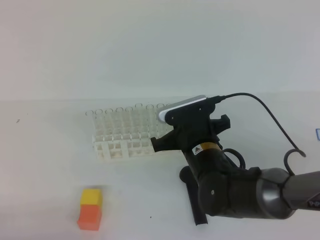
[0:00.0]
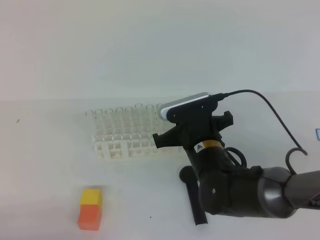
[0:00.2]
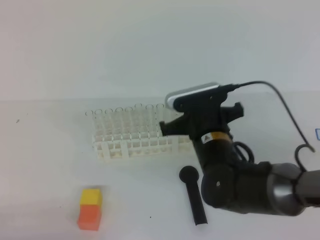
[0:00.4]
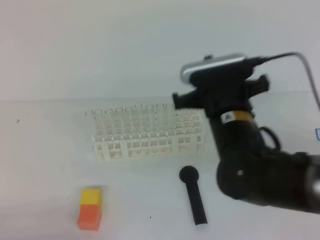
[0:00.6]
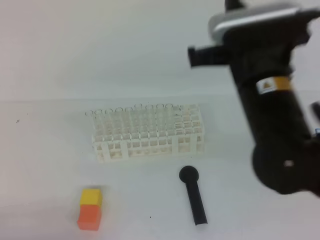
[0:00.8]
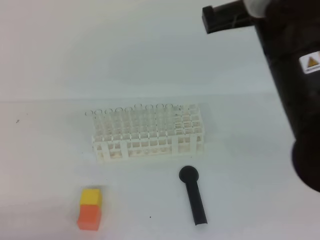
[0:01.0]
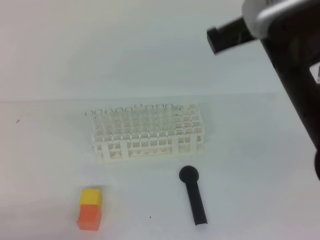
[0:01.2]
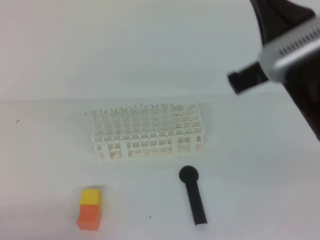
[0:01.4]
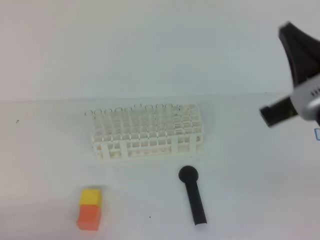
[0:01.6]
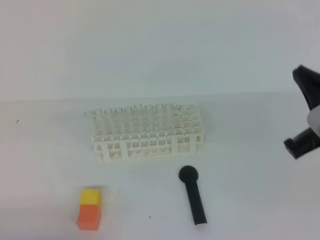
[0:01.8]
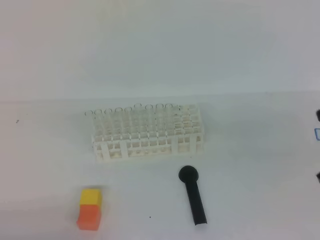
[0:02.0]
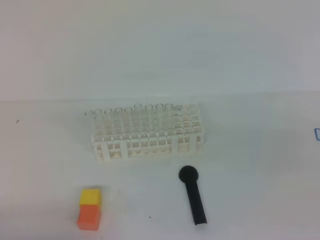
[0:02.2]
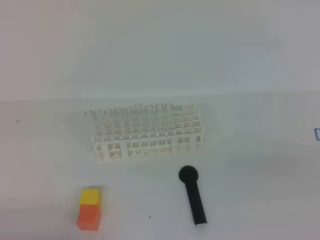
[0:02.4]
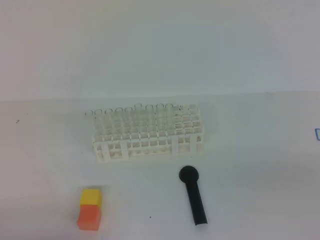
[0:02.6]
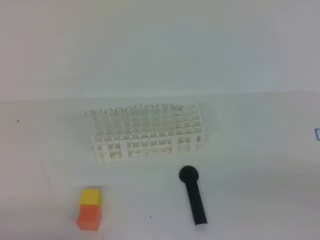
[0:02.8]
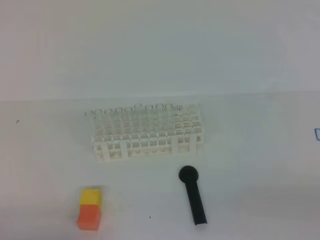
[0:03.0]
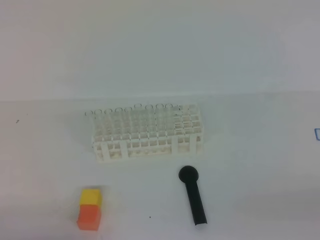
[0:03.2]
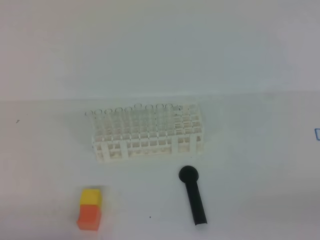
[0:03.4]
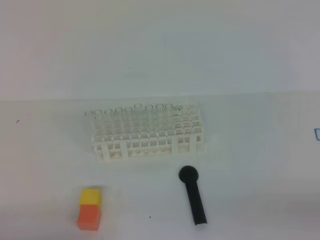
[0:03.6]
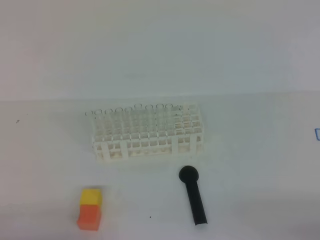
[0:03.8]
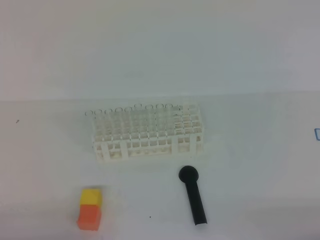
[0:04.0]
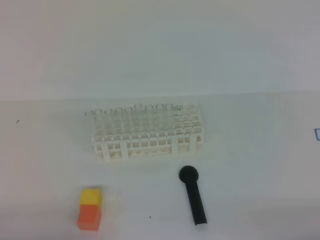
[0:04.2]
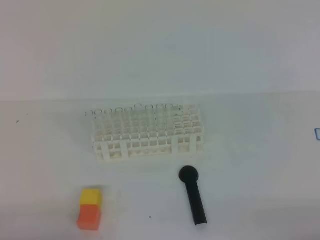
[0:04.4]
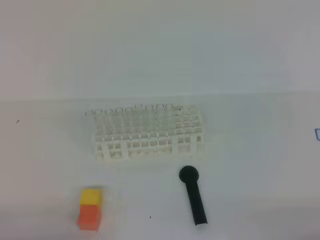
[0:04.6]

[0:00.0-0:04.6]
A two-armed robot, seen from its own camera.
0.0 to 1.6 s: The right gripper travels upward, to the right and backward by some 25 cm.
1.6 to 3.0 s: The right gripper moves to the right, backward and downward, roughly 25 cm.

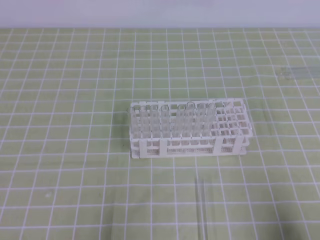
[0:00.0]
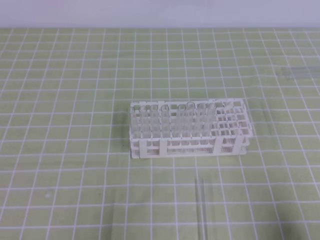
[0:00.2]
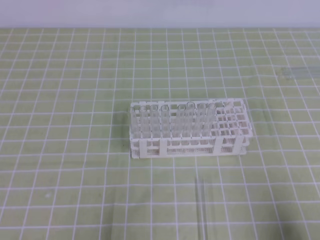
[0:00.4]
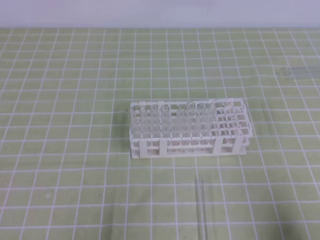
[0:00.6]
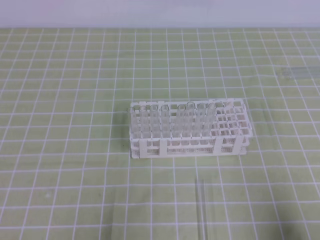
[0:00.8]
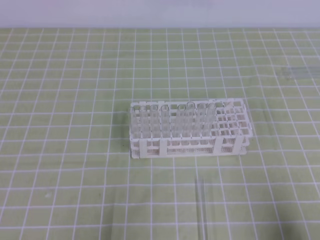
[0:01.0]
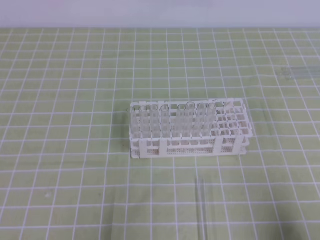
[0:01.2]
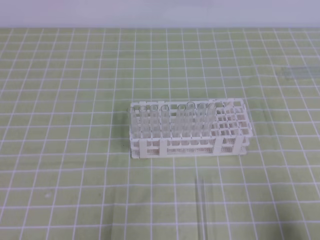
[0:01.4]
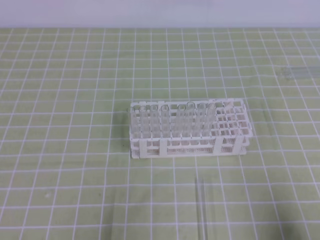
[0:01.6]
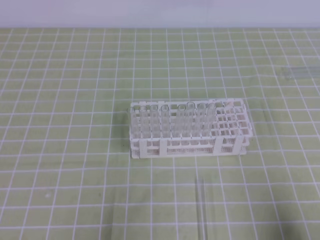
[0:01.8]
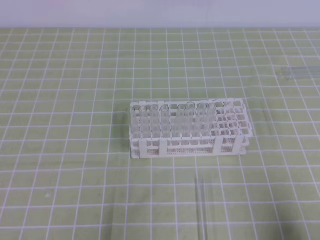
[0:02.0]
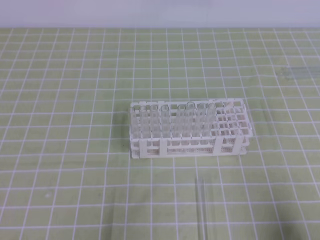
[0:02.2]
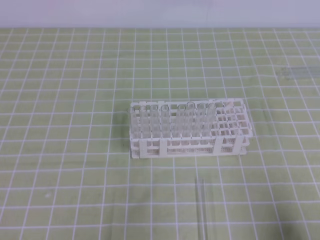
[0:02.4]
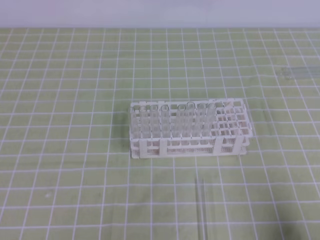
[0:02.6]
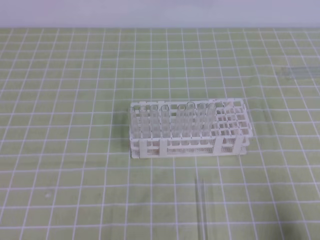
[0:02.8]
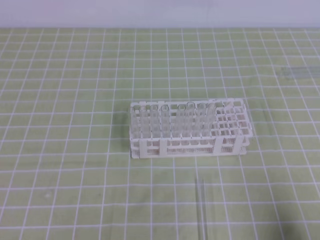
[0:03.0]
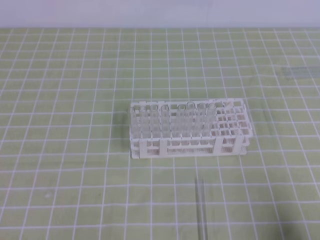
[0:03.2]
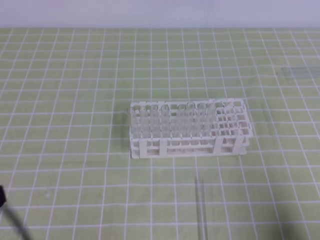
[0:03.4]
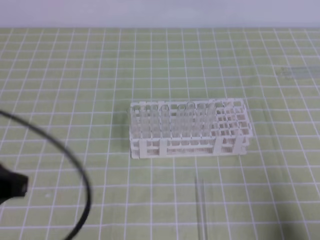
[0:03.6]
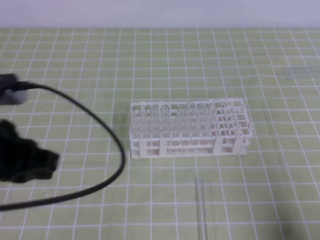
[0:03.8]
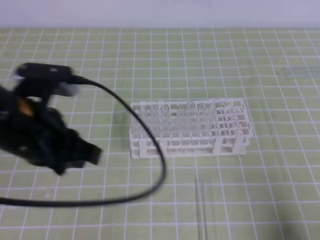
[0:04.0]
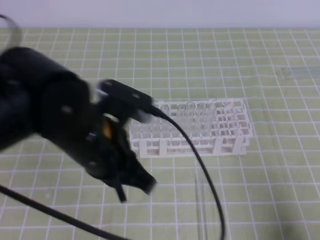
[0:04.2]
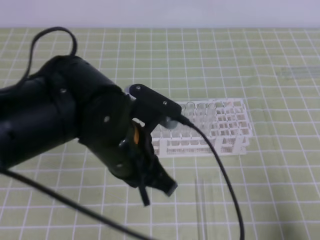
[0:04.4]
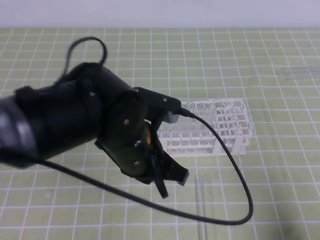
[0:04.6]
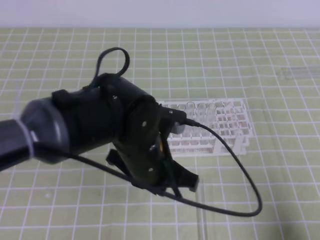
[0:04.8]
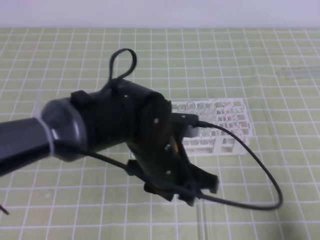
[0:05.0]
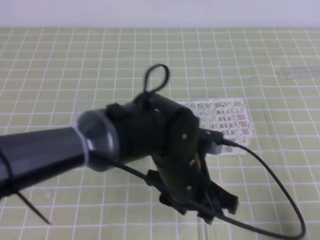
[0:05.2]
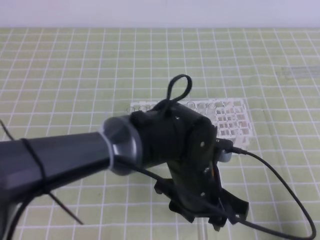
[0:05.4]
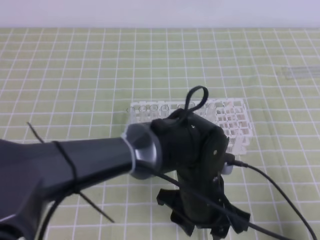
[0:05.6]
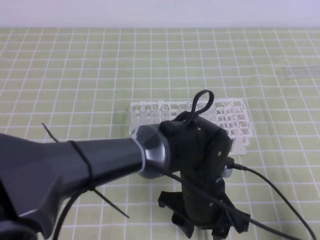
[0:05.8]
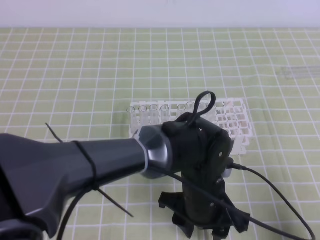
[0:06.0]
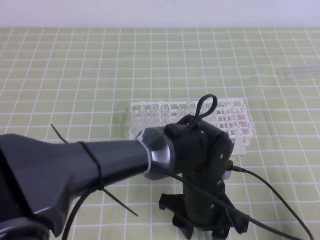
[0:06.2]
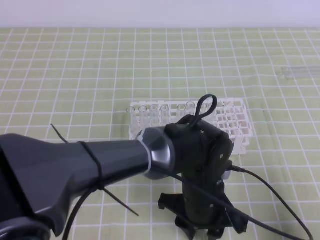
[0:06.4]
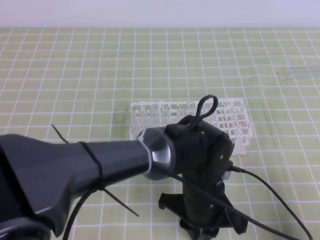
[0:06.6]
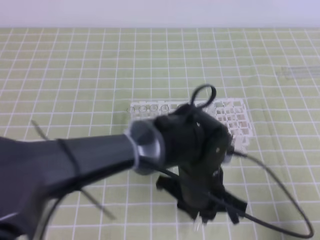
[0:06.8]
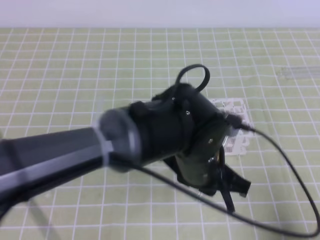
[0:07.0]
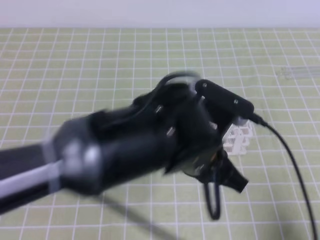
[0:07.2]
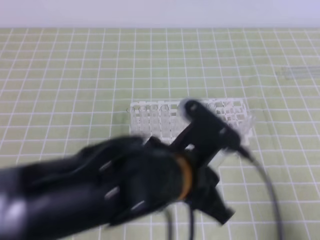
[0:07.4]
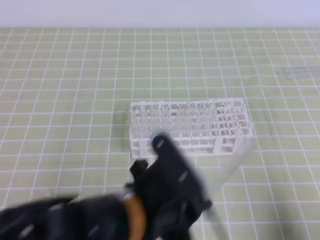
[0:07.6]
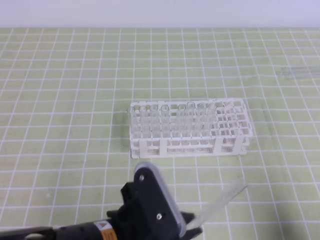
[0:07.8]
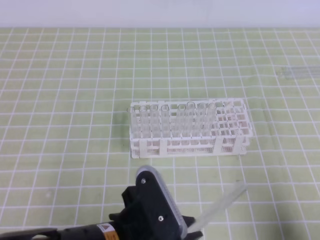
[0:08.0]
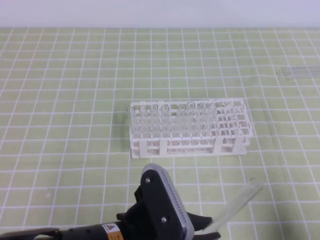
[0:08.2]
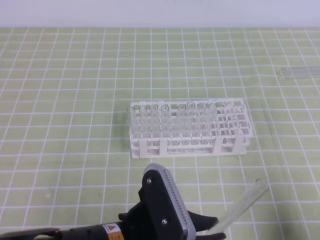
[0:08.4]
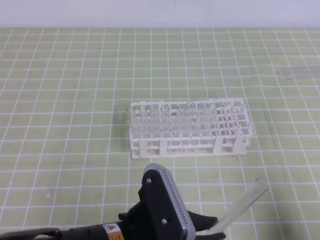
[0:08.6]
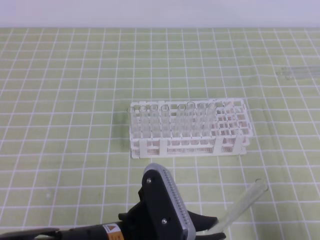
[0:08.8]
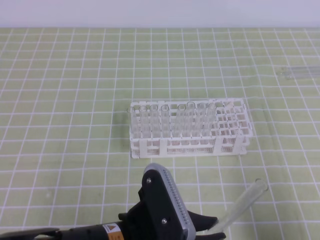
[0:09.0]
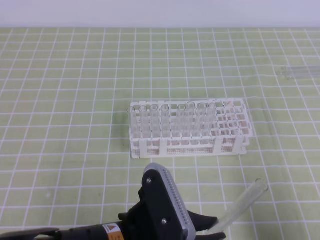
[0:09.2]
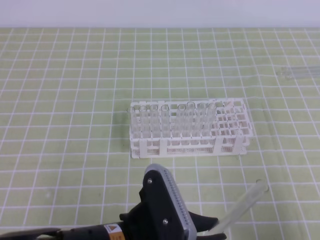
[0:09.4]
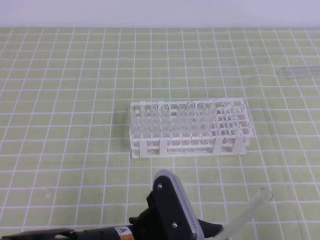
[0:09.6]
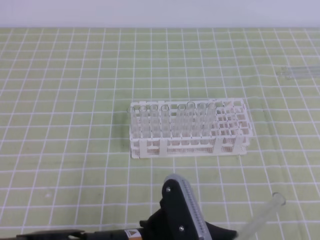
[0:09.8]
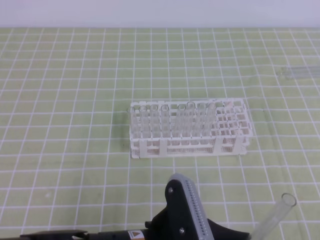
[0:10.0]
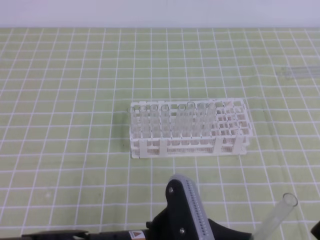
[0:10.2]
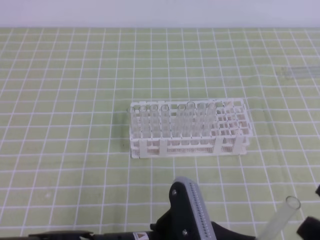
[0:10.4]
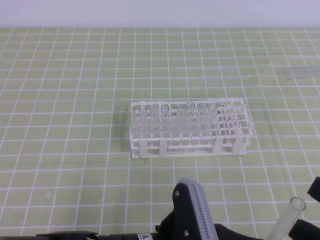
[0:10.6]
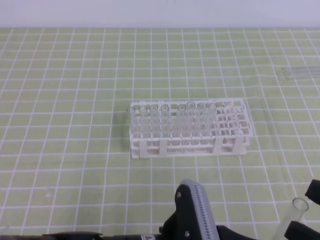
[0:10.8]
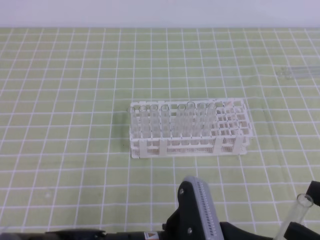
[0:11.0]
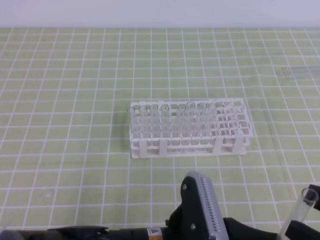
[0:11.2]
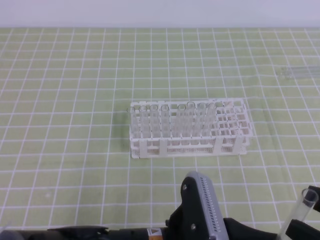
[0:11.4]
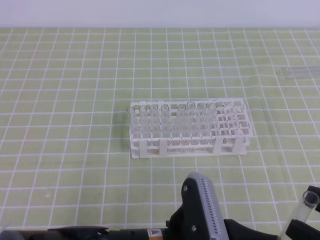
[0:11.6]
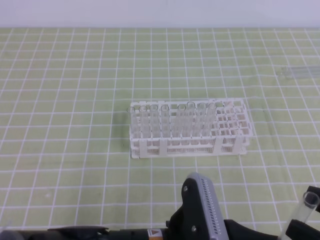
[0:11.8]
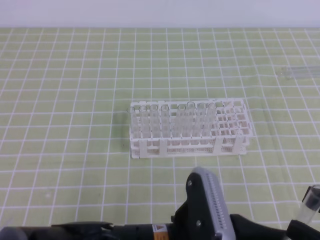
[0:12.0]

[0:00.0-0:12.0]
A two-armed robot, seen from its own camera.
3.0 to 4.4 s: The left gripper shifts roughly 25 cm to the right and forward.
4.4 to 6.0 s: The left gripper moves to the right and downward, roughly 20 cm, and opens up.
6.0 to 7.6 s: The left gripper heads upward and to the left, covering approximately 10 cm, and closes.
7.6 to 9.0 s: The left gripper shifts about 5 cm backward.
9.0 to 10.4 s: The right gripper moves upward, approximately 10 cm, and opens its fingers.
10.4 to 12.0 s: The grippers stay close to where they were, moving slightly.

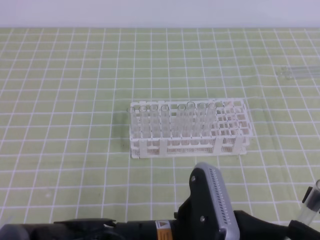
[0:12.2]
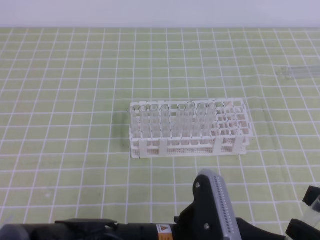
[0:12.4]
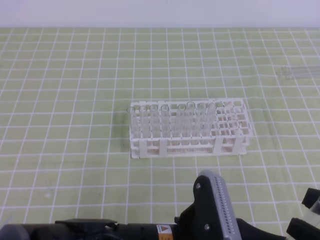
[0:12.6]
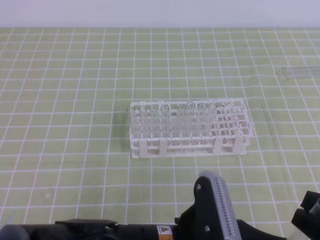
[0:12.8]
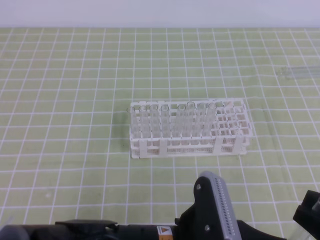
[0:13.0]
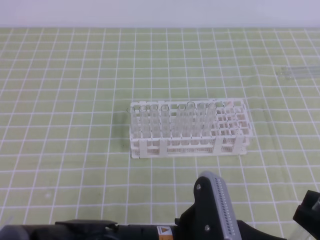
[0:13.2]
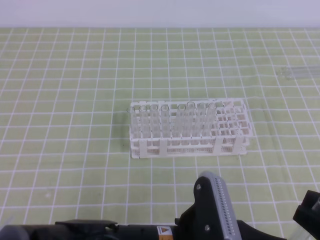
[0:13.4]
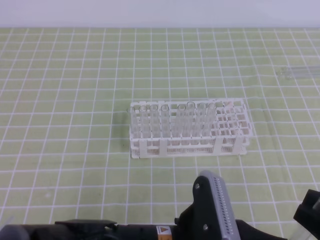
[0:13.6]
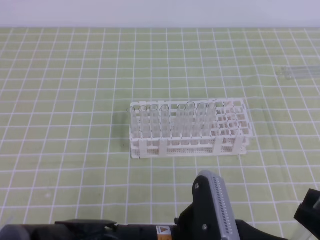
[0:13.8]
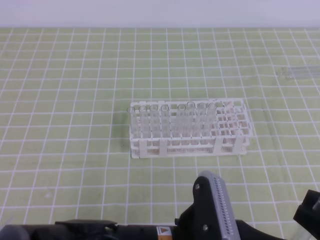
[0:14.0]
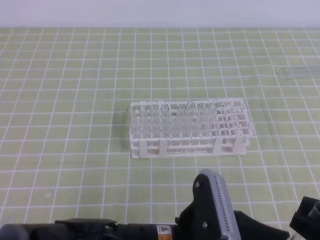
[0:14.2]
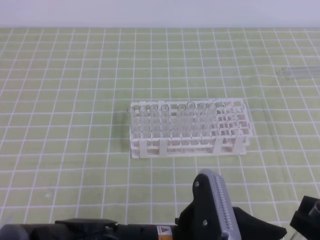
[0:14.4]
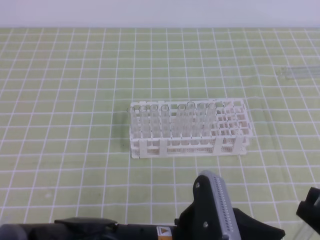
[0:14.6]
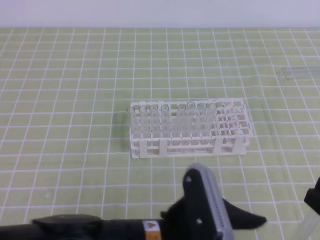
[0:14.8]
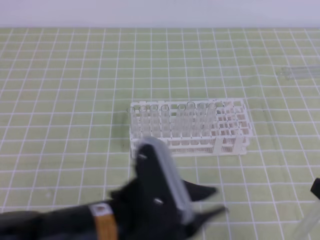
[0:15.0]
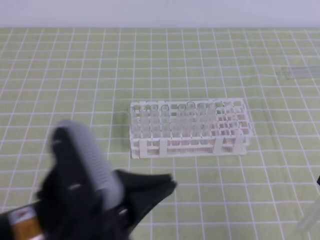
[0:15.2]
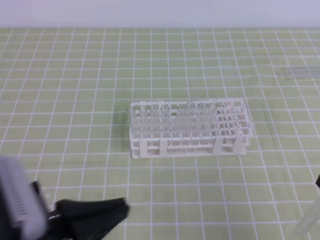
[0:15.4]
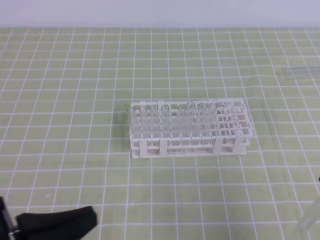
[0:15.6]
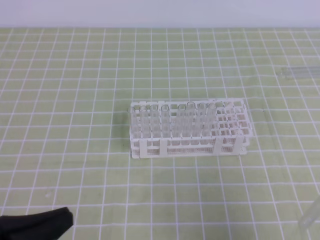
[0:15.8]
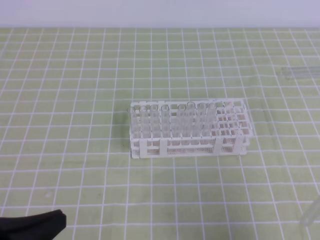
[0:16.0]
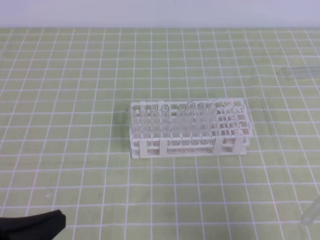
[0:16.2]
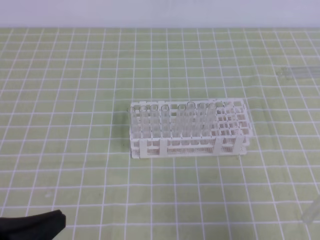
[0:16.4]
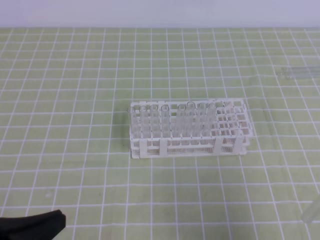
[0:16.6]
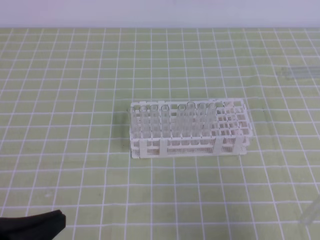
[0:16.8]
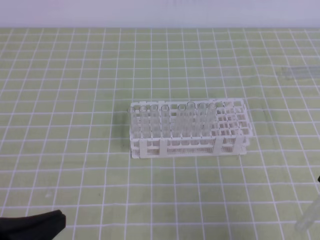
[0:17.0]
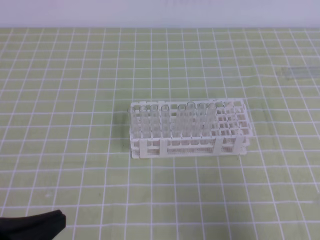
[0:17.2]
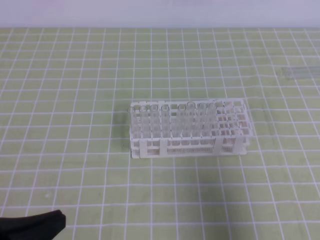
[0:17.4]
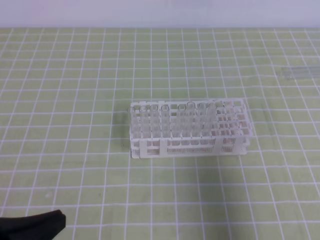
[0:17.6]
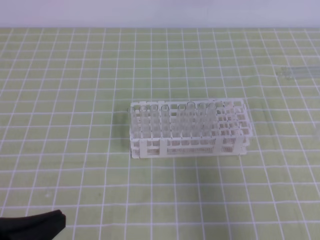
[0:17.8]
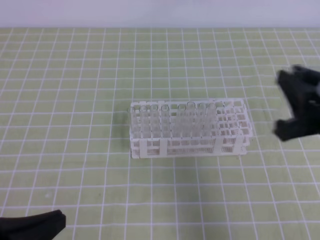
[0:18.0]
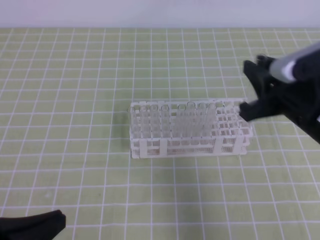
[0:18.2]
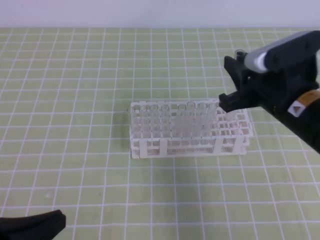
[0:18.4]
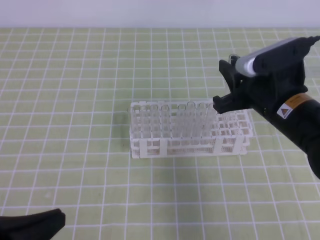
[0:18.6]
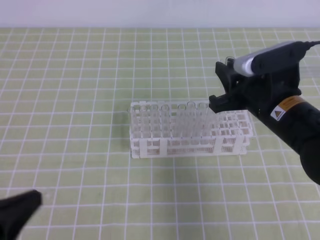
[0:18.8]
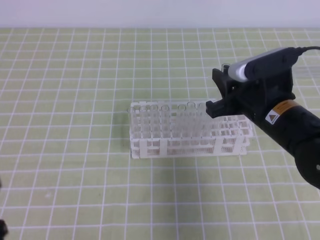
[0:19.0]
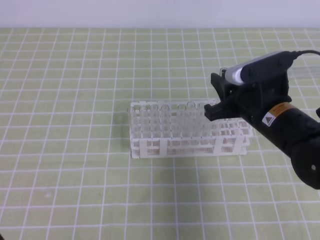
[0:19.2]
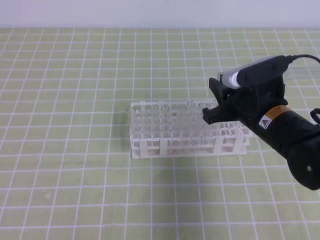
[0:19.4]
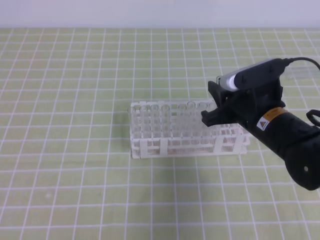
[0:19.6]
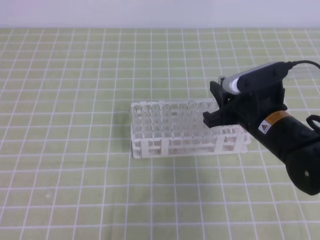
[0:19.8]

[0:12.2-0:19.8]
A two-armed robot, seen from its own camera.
12.2 to 13.8 s: The right gripper closes its fingers.
13.8 to 15.2 s: The left gripper moves to the left and upward, approximately 10 cm, and opens, then closes once more.
15.2 to 16.8 s: The left gripper is displaced to the left by some 15 cm.
16.8 to 18.2 s: The right gripper heads forward, covering roughly 15 cm.
18.2 to 19.8 s: The left gripper goes about 5 cm to the left. Meanwhile the right gripper is displaced downward, forward and to the left by some 15 cm.
